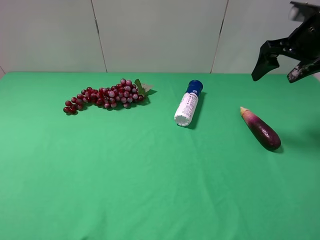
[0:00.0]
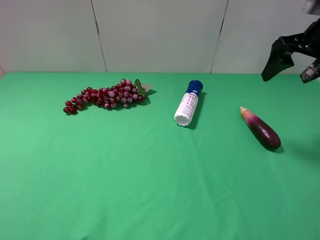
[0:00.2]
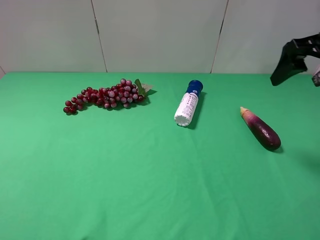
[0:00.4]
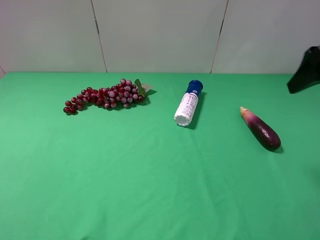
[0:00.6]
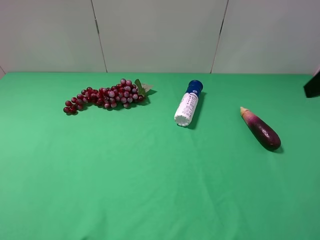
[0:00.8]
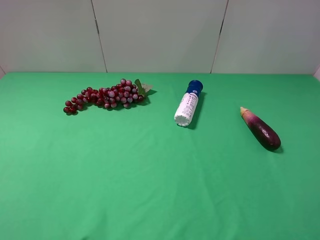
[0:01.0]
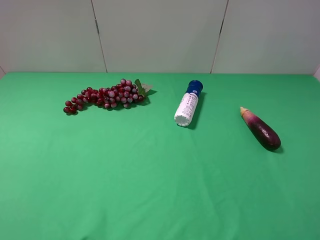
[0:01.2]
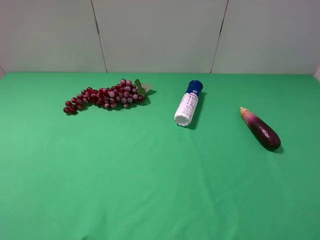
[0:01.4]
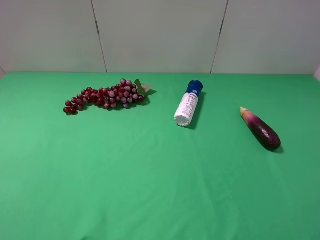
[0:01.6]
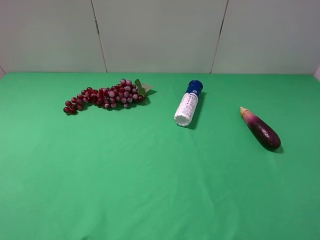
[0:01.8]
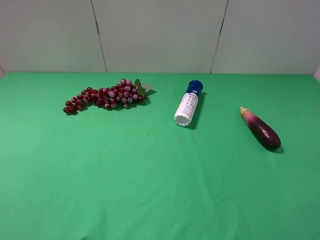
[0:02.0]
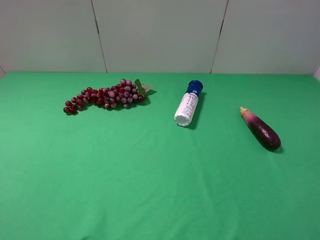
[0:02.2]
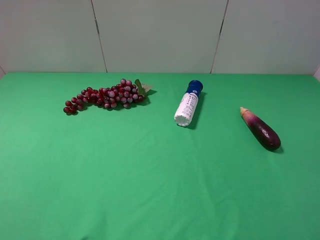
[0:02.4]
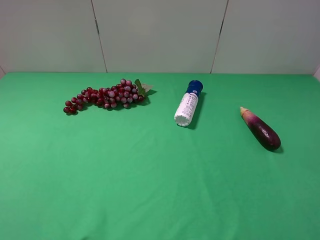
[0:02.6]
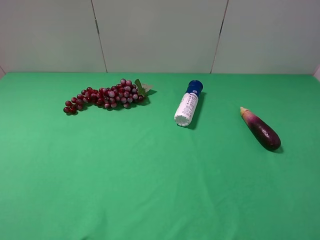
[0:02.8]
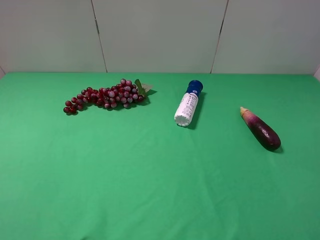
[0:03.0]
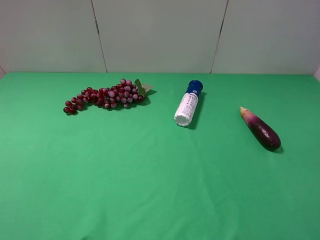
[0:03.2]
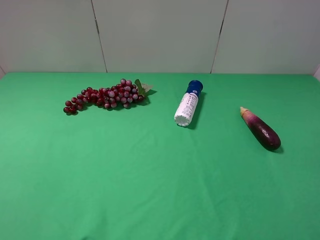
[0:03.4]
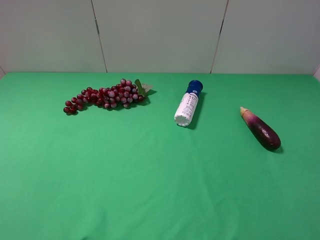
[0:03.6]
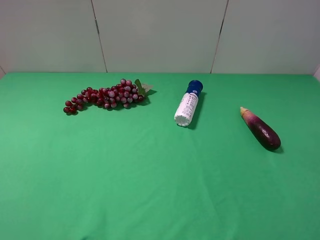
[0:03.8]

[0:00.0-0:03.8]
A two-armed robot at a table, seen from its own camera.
Task of the whole recording: use the left gripper to pick up the item and transfer it from the left gripper to the right gripper.
0:00.0 to 0:01.2: The right gripper travels backward by roughly 25 cm.
0:02.6 to 0:03.8: The two grippers keep their place.

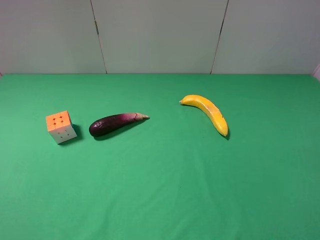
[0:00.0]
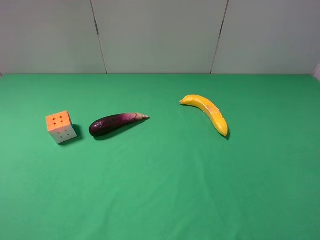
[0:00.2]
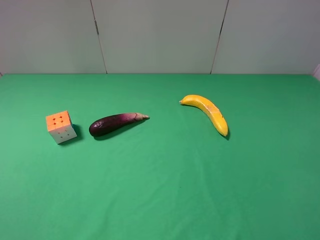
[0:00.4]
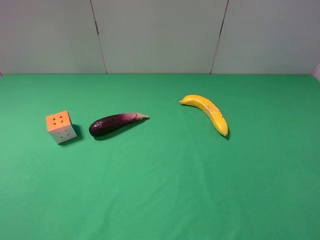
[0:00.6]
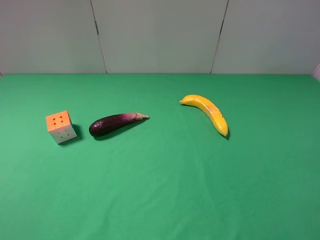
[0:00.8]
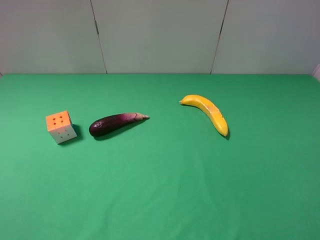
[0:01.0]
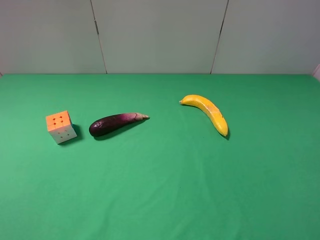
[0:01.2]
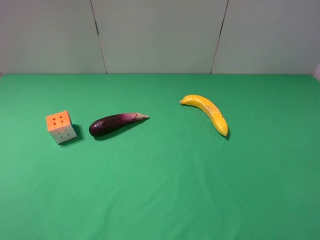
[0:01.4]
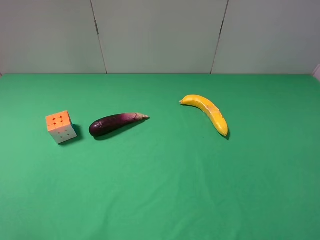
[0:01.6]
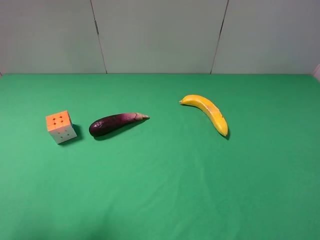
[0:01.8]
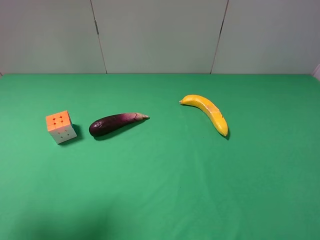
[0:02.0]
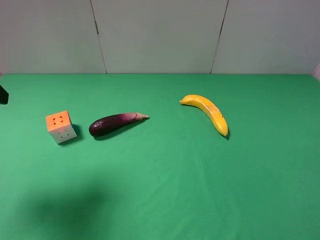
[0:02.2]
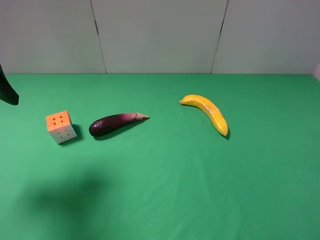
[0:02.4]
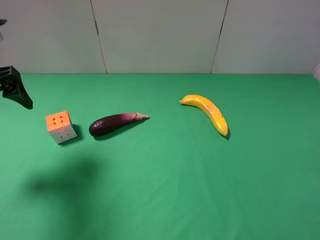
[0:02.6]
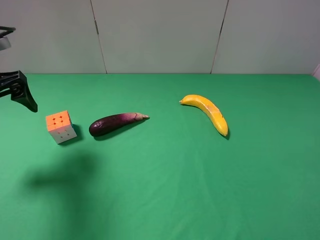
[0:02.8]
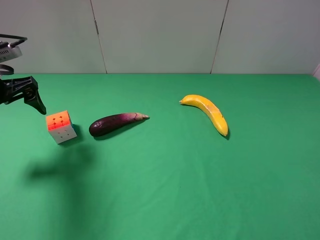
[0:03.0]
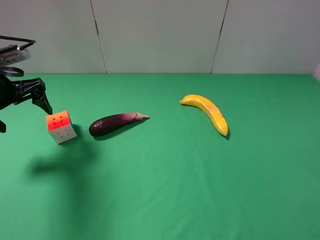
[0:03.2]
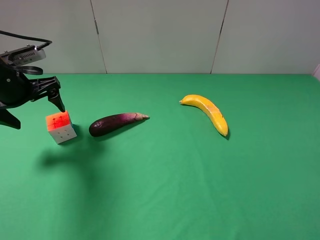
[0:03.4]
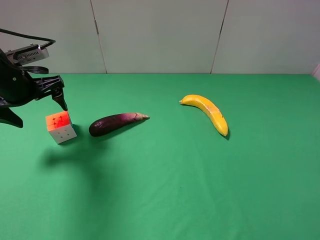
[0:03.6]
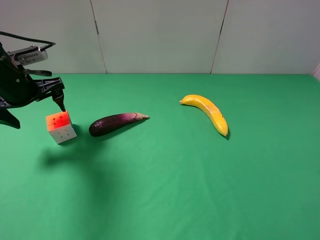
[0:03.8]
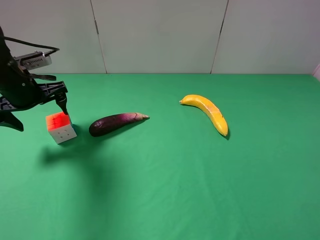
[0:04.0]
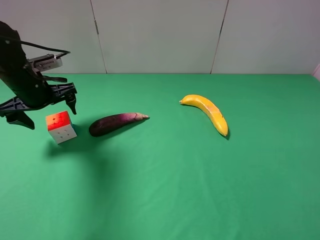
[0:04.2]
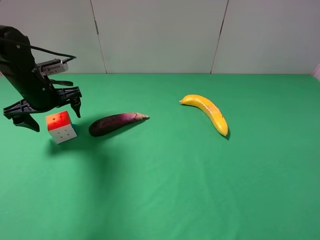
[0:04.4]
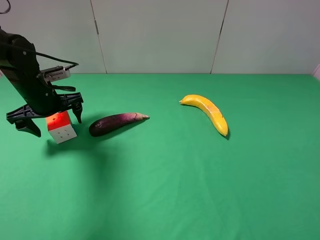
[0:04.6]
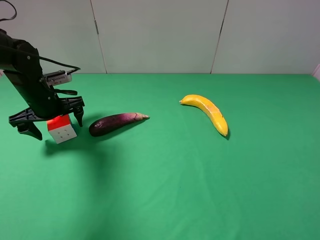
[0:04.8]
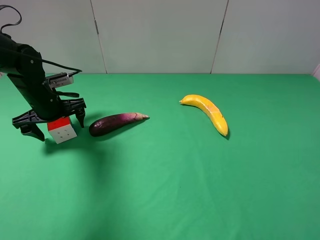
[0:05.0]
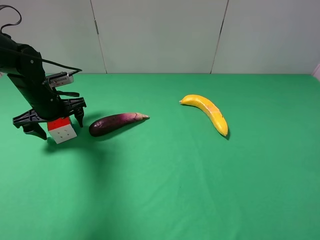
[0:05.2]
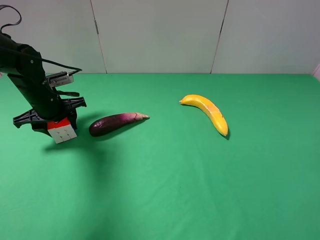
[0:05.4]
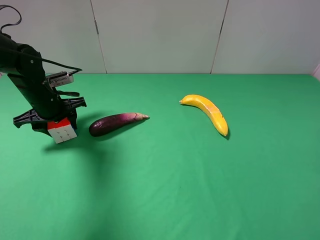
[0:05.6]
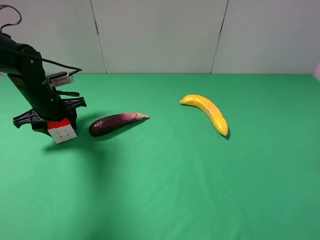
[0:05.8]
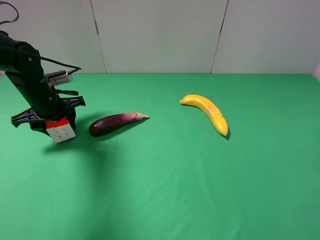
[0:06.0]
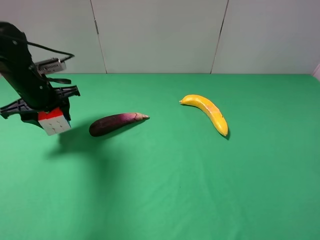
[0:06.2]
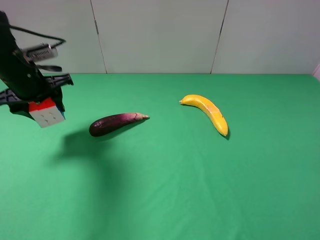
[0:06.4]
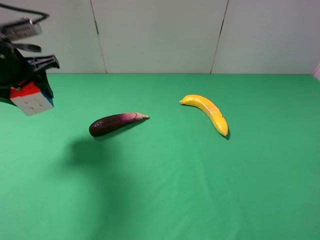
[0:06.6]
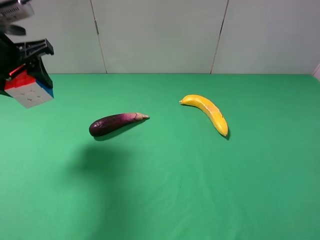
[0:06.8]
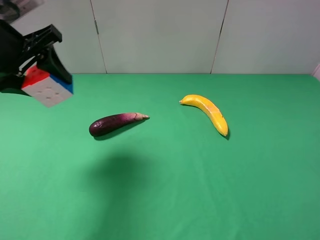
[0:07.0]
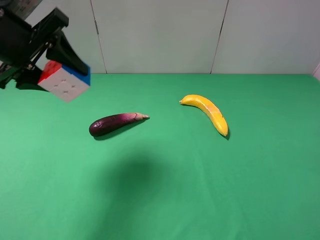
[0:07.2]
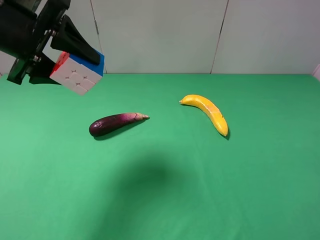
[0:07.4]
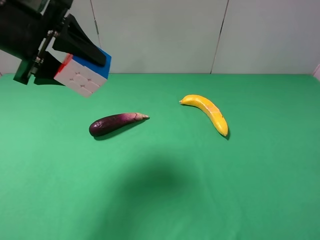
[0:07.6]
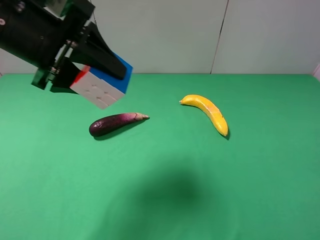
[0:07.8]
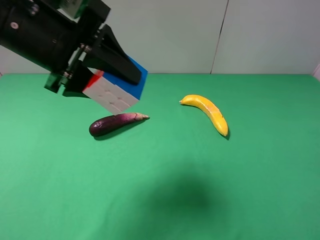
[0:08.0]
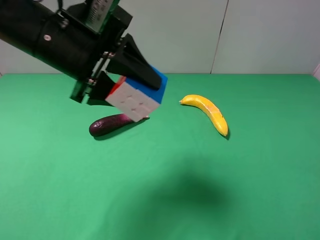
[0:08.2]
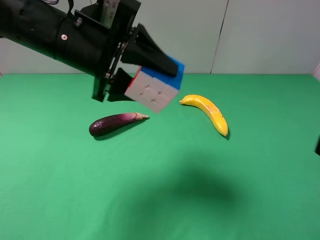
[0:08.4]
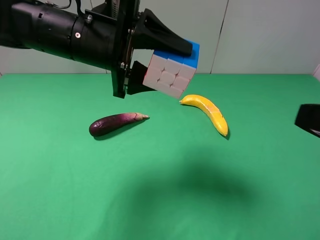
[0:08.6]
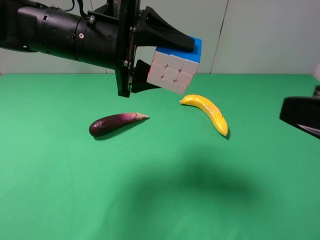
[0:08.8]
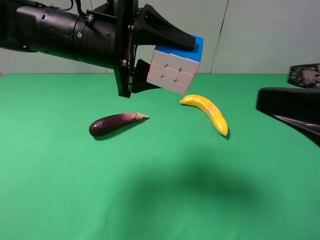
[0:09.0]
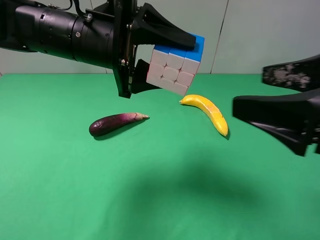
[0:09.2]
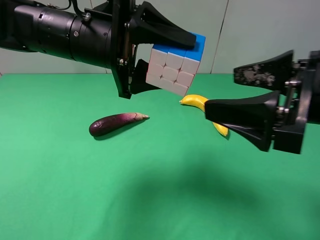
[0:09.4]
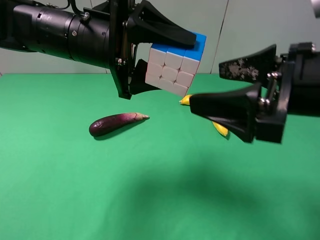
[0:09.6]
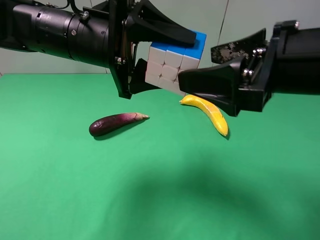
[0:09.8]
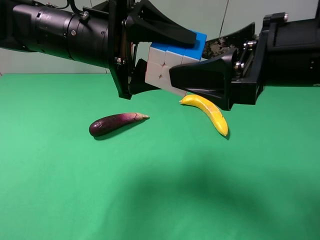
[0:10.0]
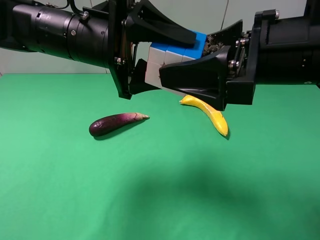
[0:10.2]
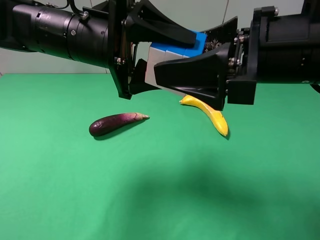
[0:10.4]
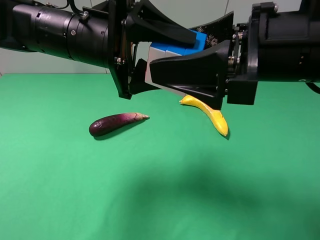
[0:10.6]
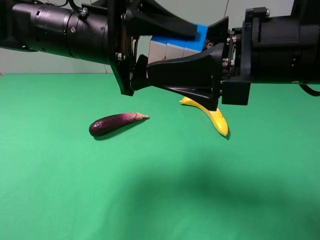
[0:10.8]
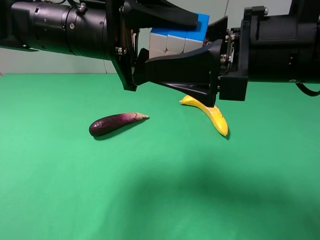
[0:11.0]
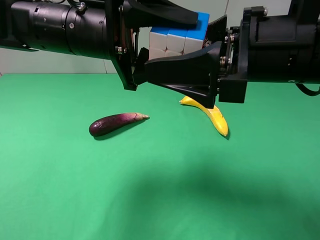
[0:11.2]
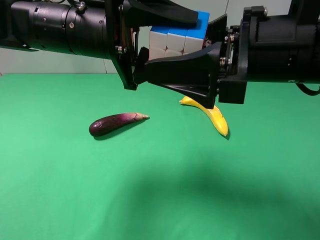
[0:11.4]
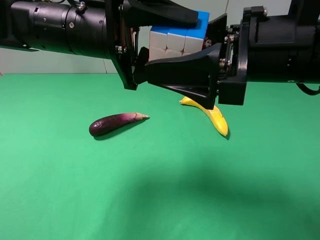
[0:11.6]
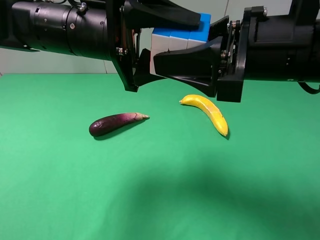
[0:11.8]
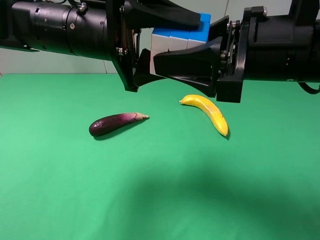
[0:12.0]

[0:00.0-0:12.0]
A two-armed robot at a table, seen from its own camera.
Task of the whole recording: use the left gripper to pick up the item and transfer it from the left gripper to the right gripper.
Step, 0:00.0 to 0:05.4: Use the left gripper to grab the Rubik's Cube on the left side of the table.
0:01.6 to 0:03.0: The left gripper shifts approximately 25 cm forward and downward.
0:03.0 to 0:04.4: The left gripper goes approximately 10 cm forward, downward and to the right.
0:04.4 to 0:06.0: The left gripper closes its fingers.
0:06.0 to 0:07.6: The left gripper shifts approximately 20 cm upward and backward.
0:07.6 to 0:09.0: The right gripper shifts approximately 10 cm forward and to the left; the left gripper is displaced to the right by some 10 cm.
0:09.0 to 0:10.4: The right gripper shifts roughly 10 cm to the left and forward.
0:10.4 to 0:12.0: The right gripper closes.

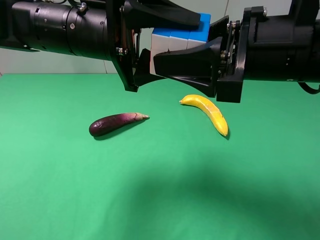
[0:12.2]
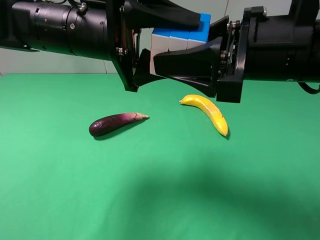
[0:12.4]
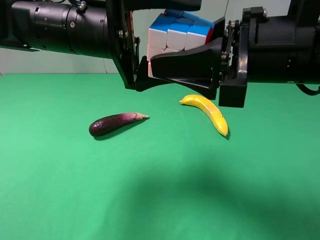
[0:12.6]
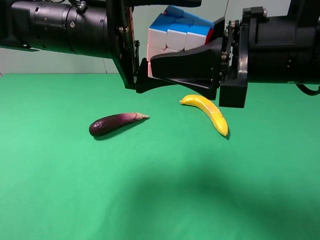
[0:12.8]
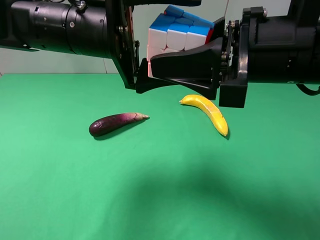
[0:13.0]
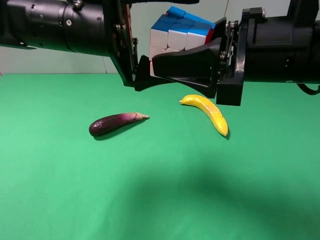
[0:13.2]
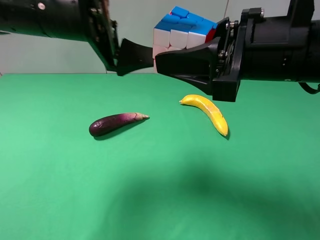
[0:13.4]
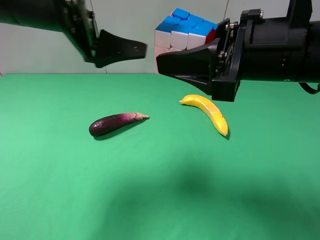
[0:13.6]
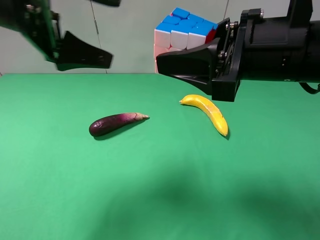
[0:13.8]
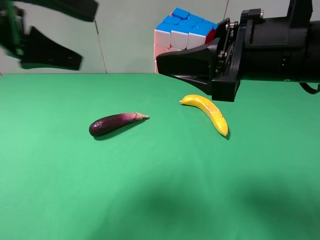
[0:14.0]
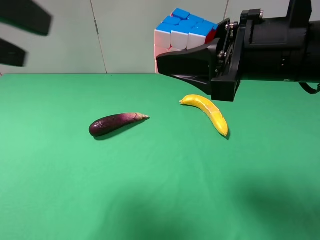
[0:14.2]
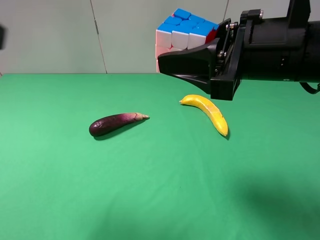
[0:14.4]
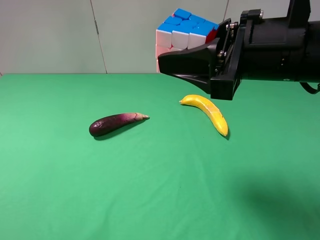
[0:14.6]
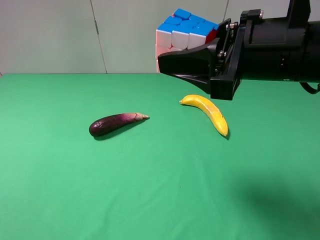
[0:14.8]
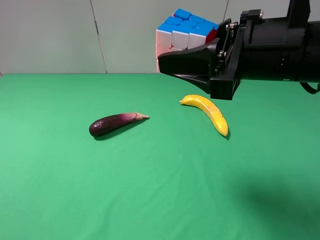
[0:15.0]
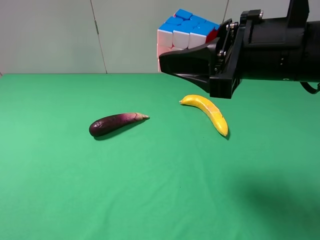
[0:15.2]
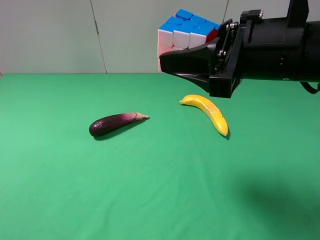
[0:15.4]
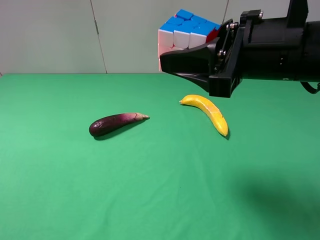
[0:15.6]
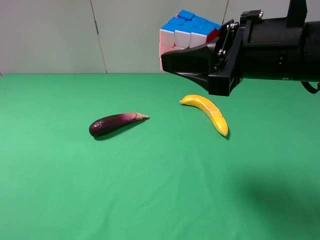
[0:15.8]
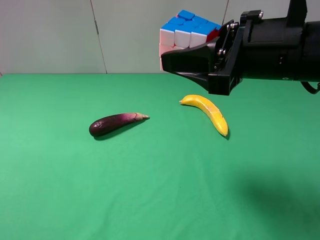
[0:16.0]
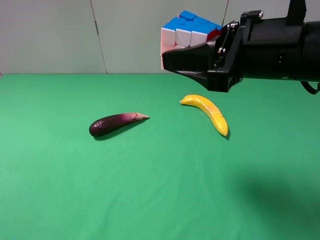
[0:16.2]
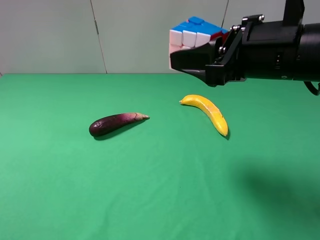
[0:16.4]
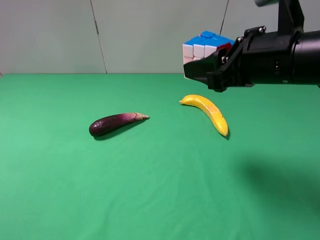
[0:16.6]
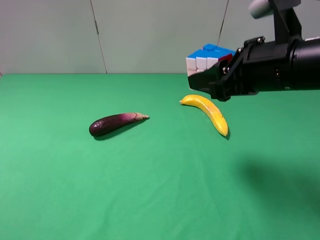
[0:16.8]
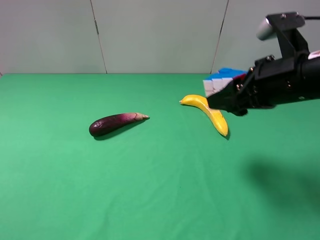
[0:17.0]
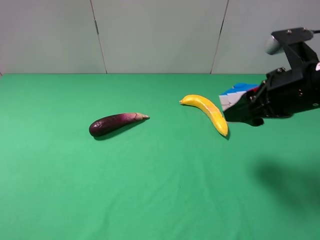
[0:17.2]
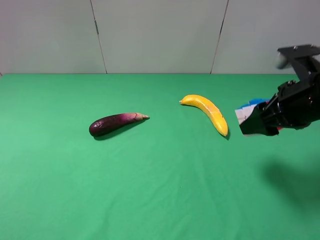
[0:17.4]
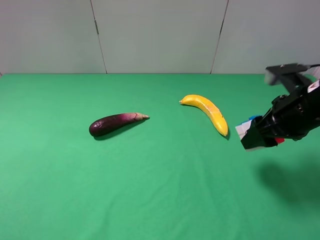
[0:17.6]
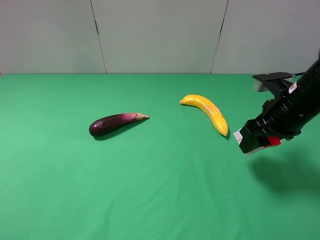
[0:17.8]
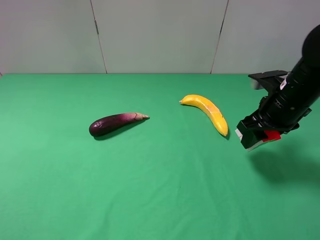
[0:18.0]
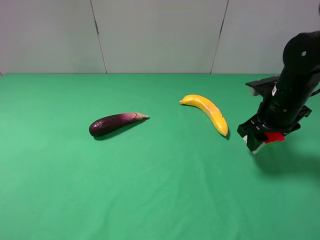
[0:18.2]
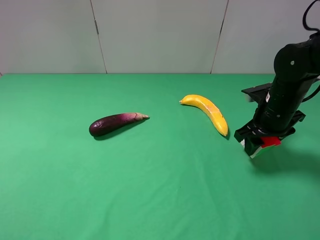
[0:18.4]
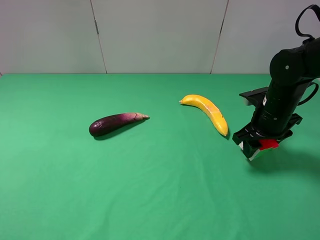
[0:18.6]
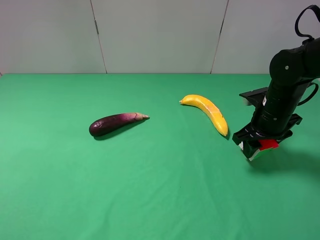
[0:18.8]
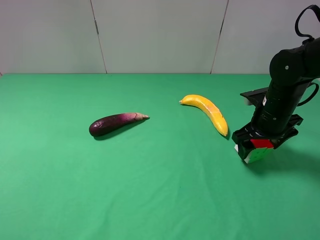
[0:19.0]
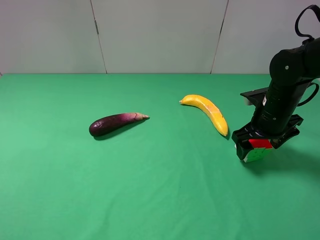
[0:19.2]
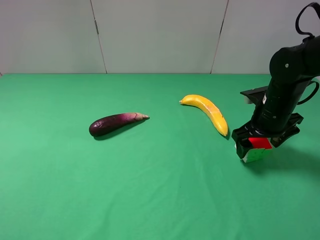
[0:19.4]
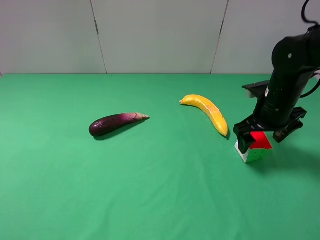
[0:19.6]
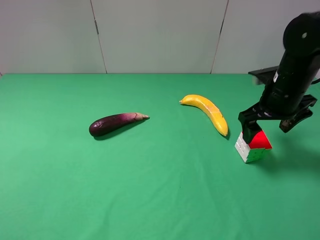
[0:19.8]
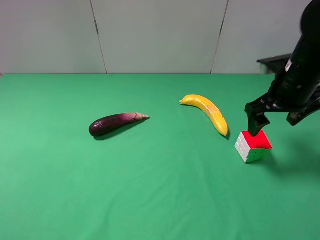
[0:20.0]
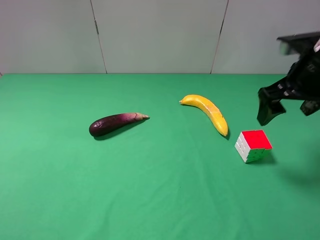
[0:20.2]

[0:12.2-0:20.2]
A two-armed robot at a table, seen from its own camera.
Task of the whole recording: use the left gripper to pick up the item and transfer it from the left gripper to the right gripper.
Step, 0:12.8 to 0:19.2: The right gripper places Rubik's Cube on the right side of the table.
0:12.2 to 0:13.8: The left gripper moves to the left and upward, roughly 10 cm, and opens up.
0:13.8 to 0:15.4: The left gripper heads backward and to the left, covering roughly 30 cm.
0:15.4 to 0:17.0: The right gripper moves to the right, approximately 5 cm.
0:17.0 to 0:18.6: The right gripper shifts approximately 15 cm downward and forward.
0:18.6 to 0:20.2: The right gripper travels upward by approximately 15 cm, and opens up.
